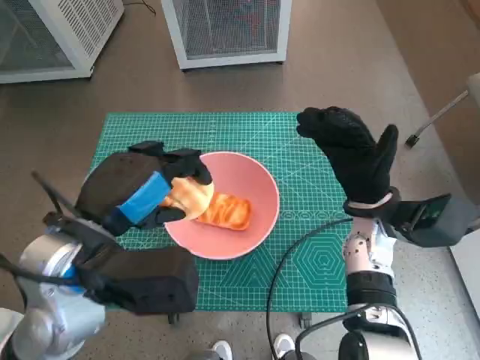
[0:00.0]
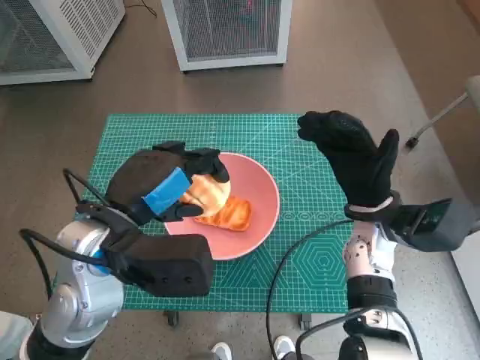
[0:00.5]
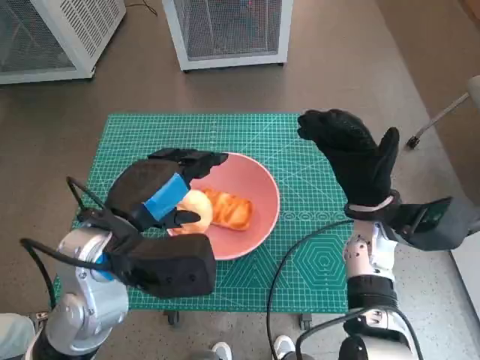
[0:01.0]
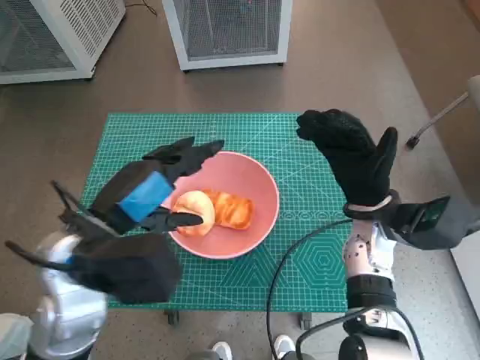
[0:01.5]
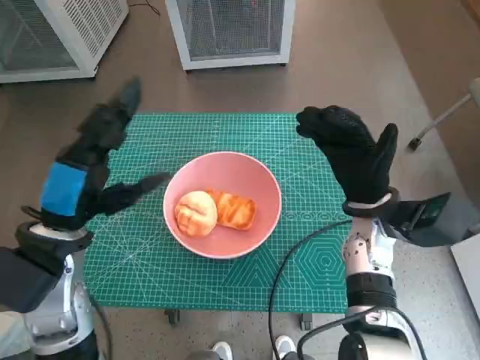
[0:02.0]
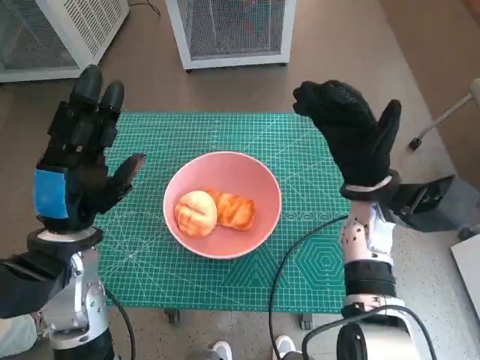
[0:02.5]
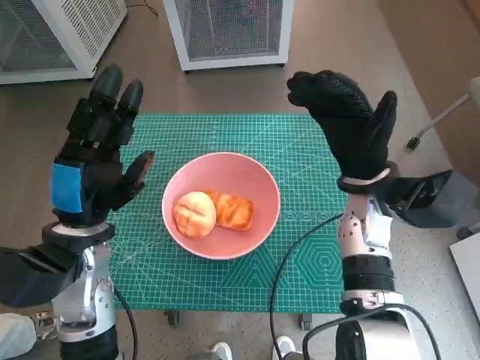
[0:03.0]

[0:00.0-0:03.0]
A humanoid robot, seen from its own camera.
Task of the whole recording: Push the bowl into the center of the table and put the bread into the bowl.
0:00.0 to 0:01.5: The hands make only small movements.
0:01.5 to 0:03.0: The left hand shifts by approximately 5 cm.
